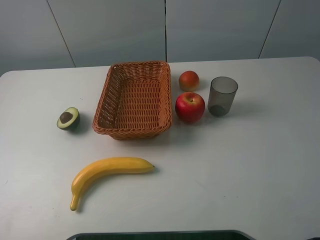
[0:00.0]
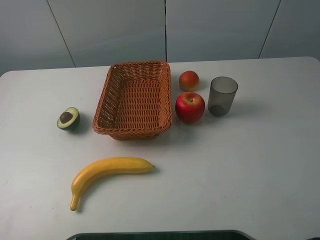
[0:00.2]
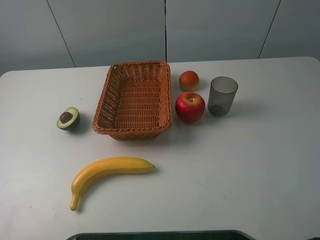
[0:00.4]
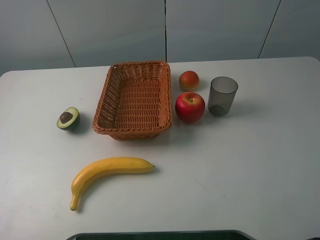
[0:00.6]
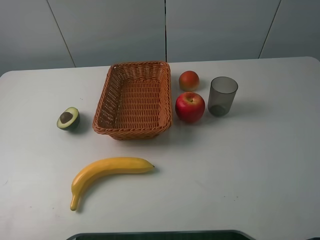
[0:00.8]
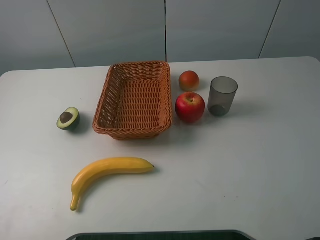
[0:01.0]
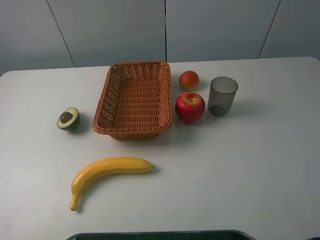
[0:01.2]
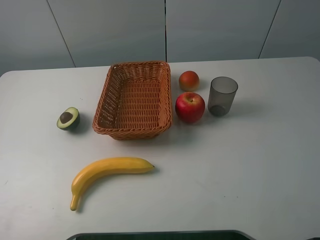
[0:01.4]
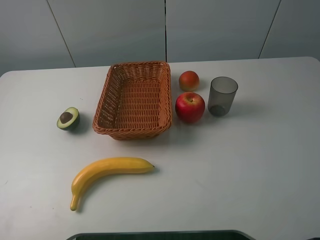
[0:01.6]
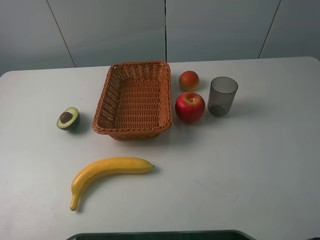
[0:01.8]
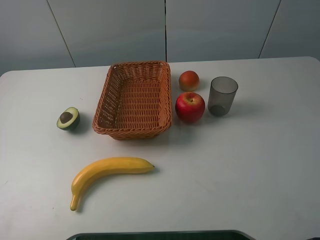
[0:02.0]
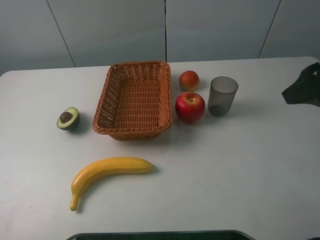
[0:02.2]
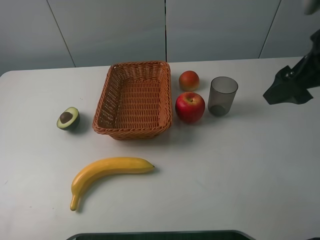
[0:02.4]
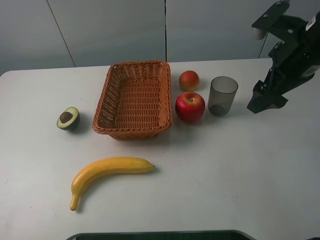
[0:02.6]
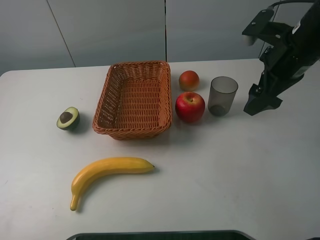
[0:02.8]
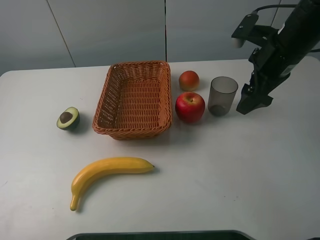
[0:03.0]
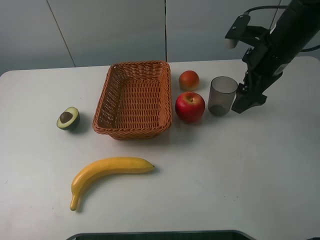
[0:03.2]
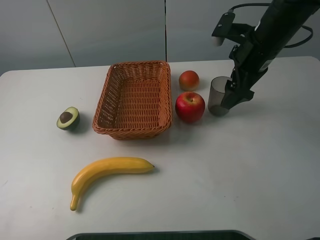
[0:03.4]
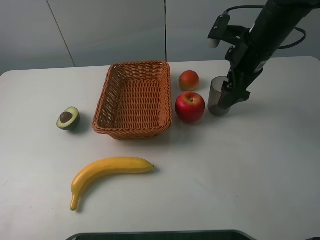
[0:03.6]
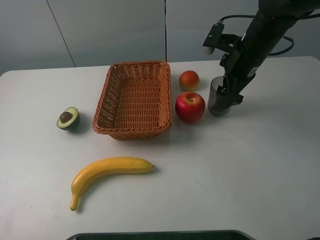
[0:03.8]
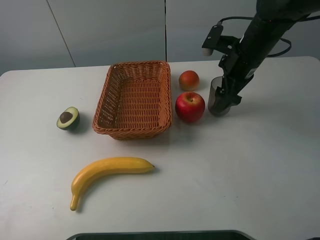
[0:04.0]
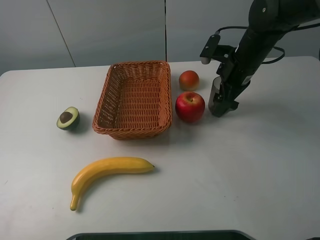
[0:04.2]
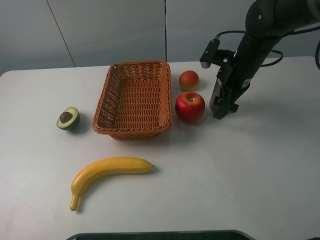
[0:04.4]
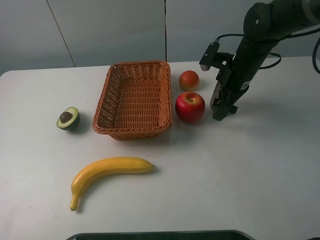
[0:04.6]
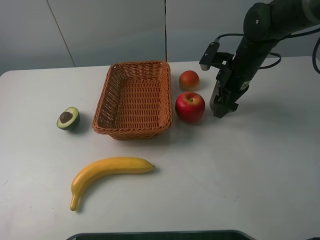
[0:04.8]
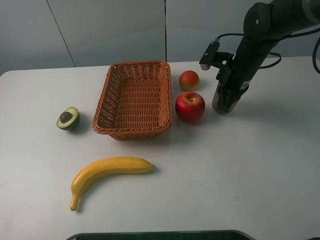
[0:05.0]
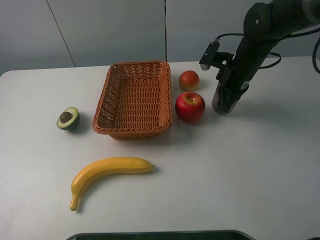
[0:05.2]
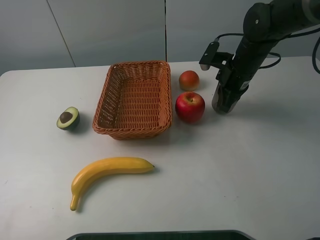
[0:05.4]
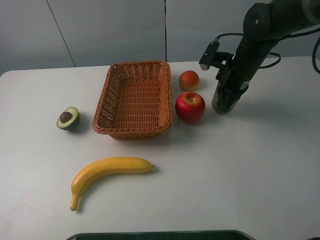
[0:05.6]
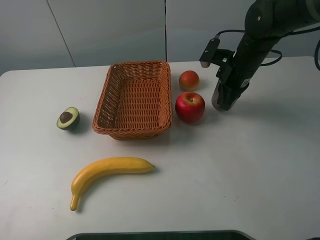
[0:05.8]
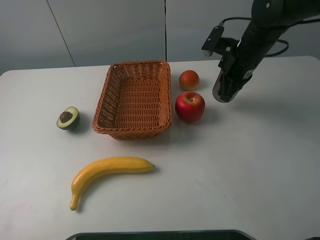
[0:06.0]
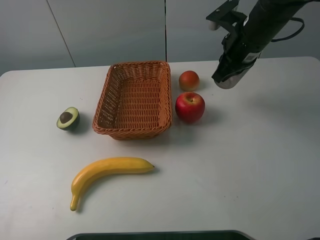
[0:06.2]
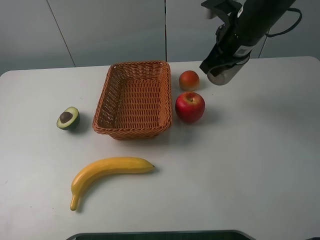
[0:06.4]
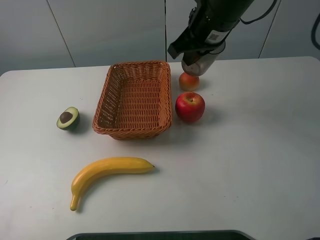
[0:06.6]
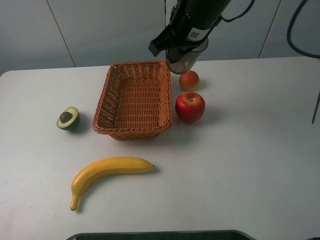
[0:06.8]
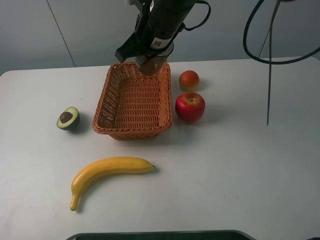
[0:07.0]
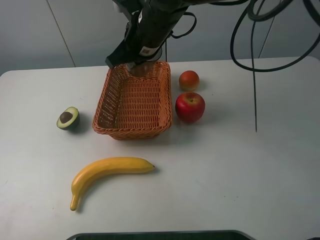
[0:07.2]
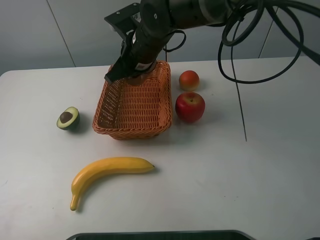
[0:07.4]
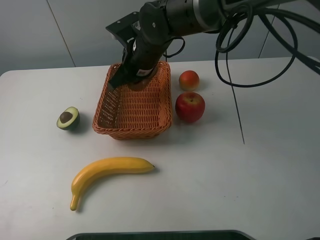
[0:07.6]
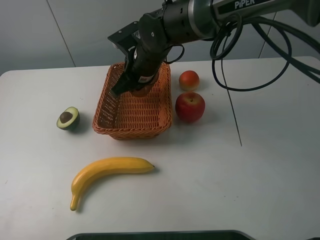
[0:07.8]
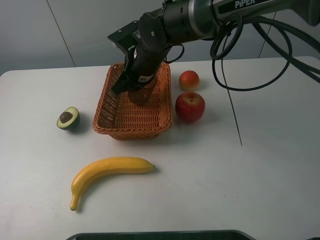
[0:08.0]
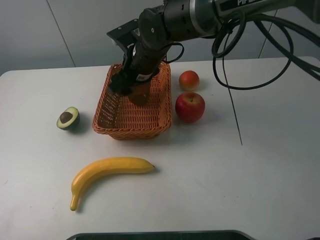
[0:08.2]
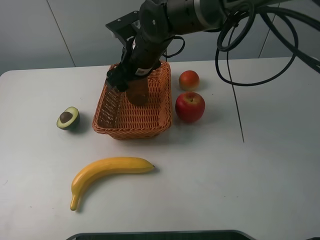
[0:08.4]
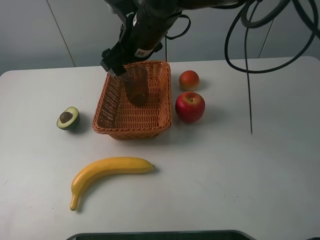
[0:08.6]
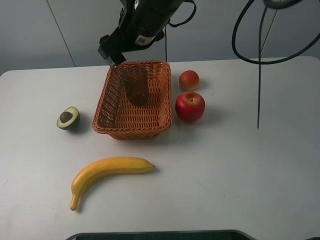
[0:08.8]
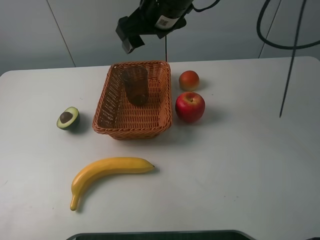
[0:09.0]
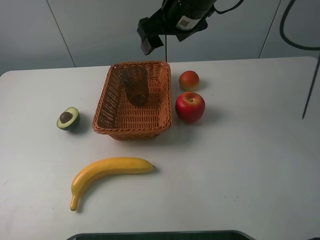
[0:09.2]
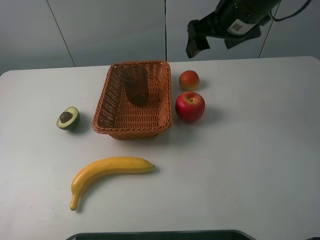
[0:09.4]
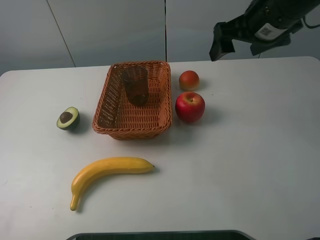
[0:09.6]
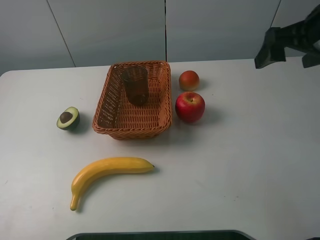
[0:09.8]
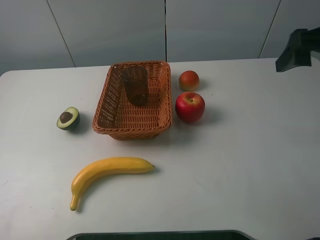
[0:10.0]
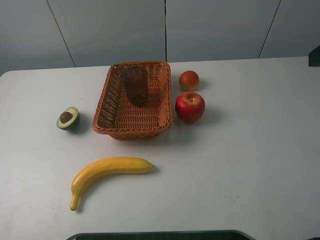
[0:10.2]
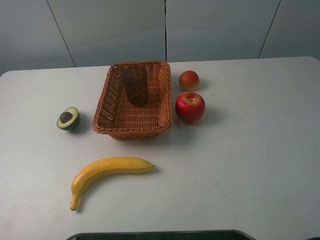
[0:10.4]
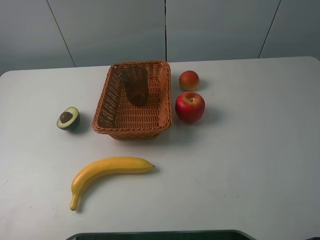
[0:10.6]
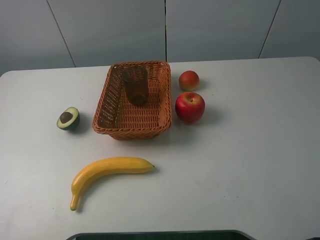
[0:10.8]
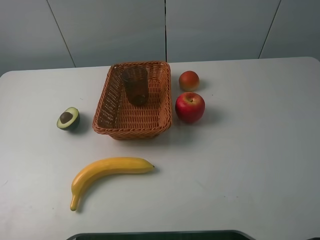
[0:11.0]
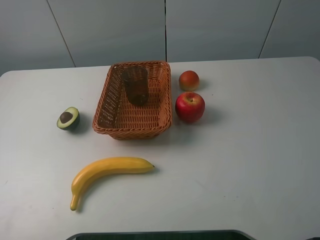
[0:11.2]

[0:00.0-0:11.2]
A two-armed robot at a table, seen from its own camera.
0:01.6 to 0:03.2: The right gripper shifts about 30 cm forward.
0:03.2 to 0:04.8: The right gripper moves downward, about 5 cm, and closes its fingers.
0:04.8 to 0:06.4: The right gripper shifts approximately 10 cm upward, and closes.
0:06.4 to 0:08.0: The right gripper is displaced to the left and downward by about 20 cm.
0:08.0 to 0:09.6: The right gripper moves to the right and upward, roughly 25 cm, and opens its fingers.
0:09.6 to 0:11.2: The right gripper travels backward by approximately 30 cm.
